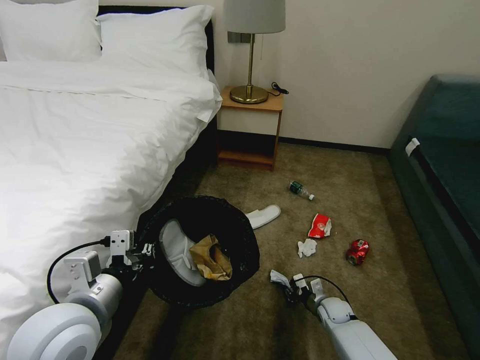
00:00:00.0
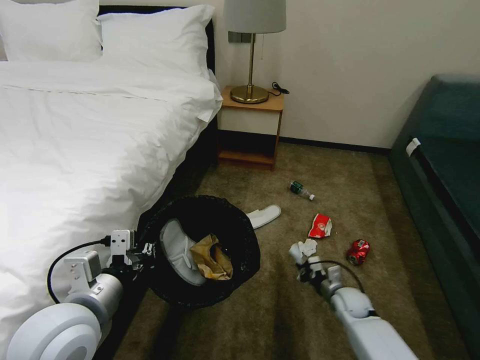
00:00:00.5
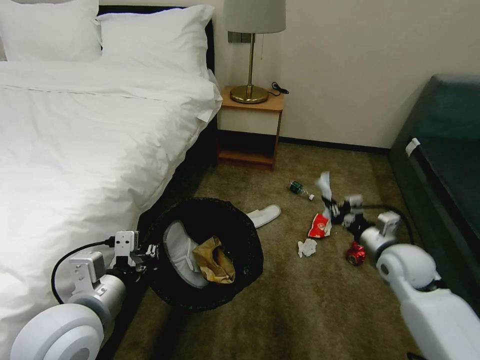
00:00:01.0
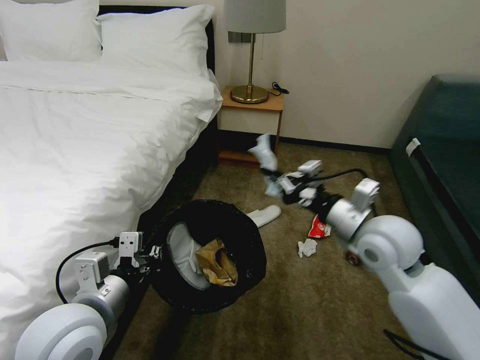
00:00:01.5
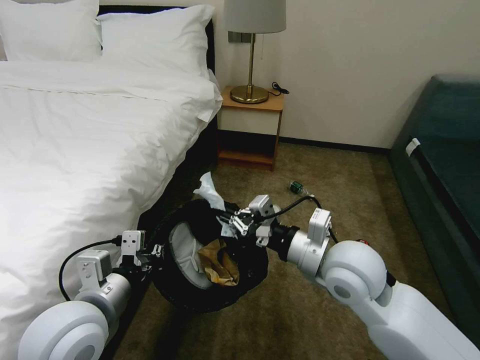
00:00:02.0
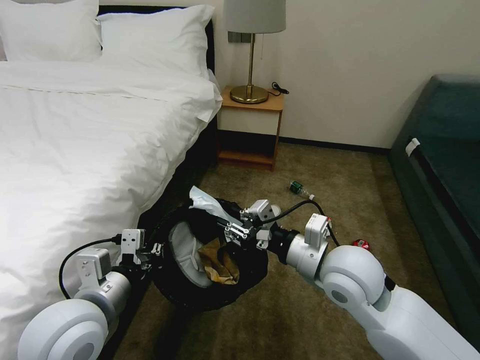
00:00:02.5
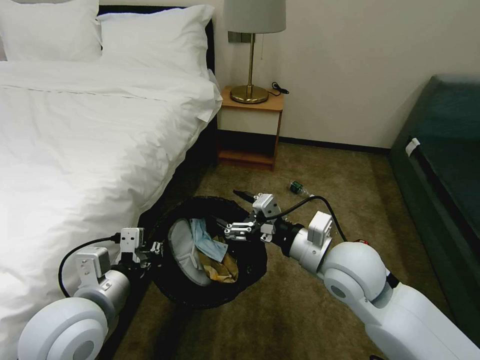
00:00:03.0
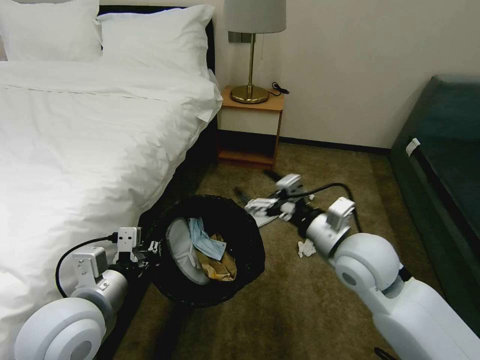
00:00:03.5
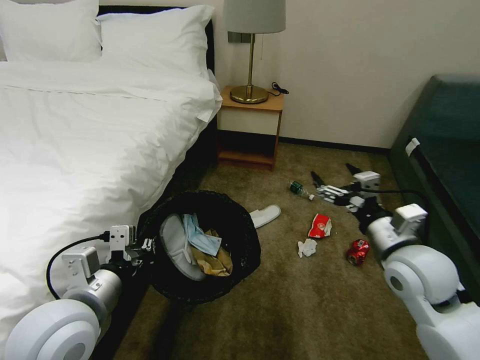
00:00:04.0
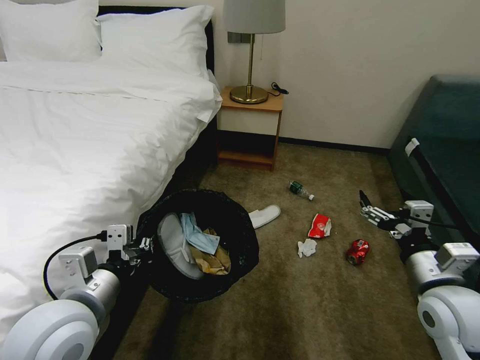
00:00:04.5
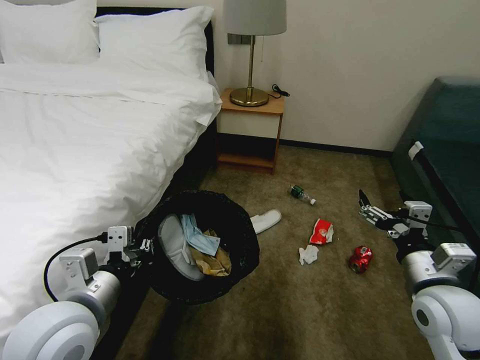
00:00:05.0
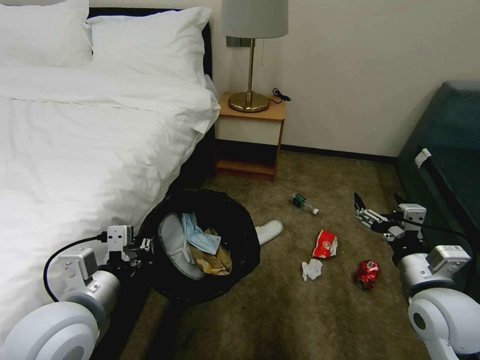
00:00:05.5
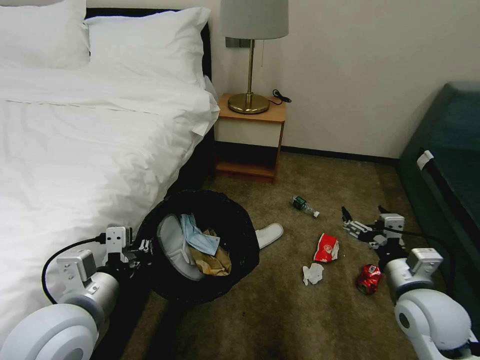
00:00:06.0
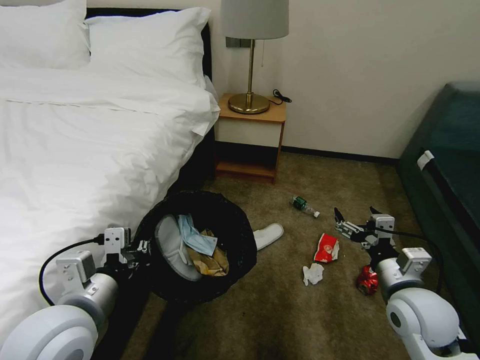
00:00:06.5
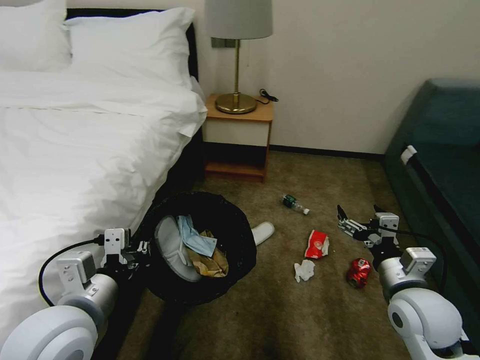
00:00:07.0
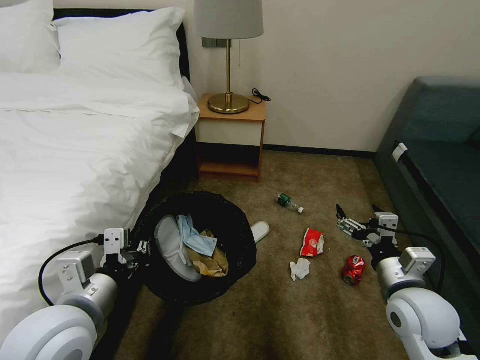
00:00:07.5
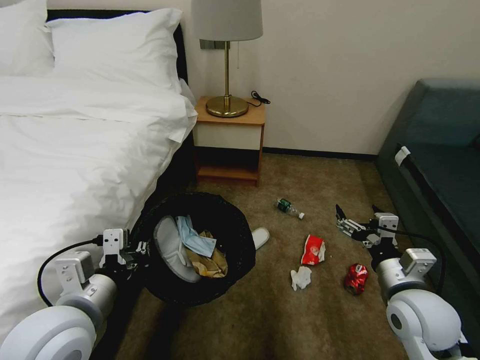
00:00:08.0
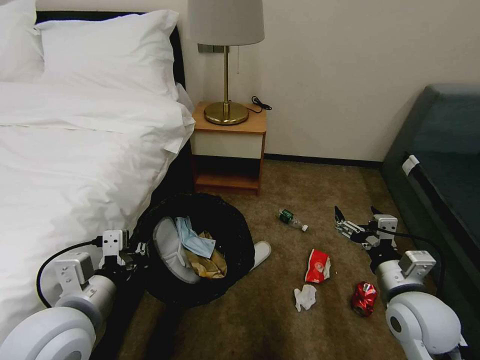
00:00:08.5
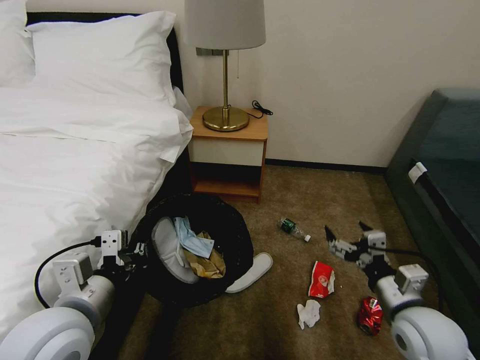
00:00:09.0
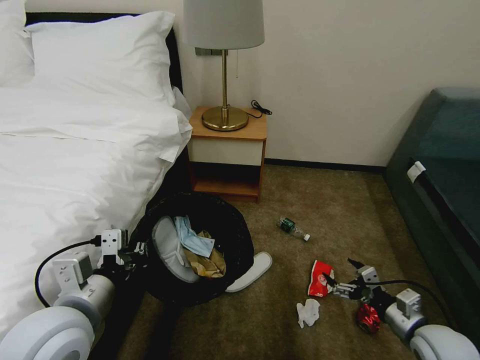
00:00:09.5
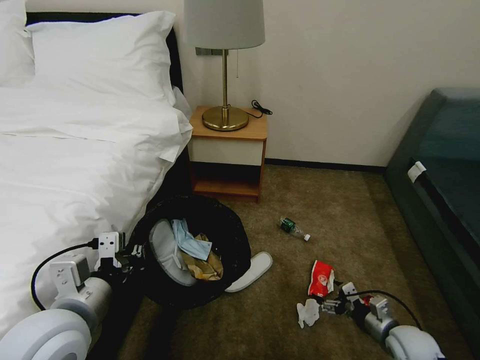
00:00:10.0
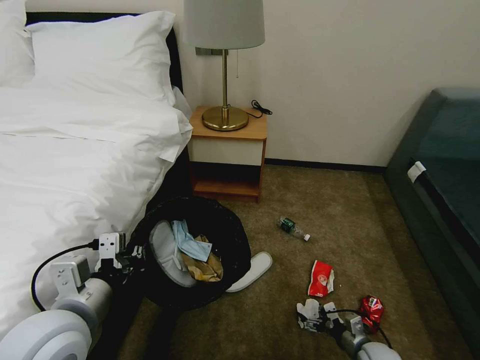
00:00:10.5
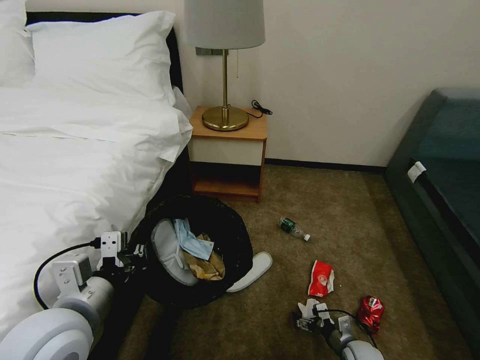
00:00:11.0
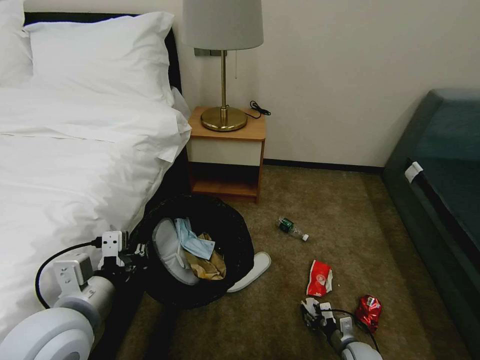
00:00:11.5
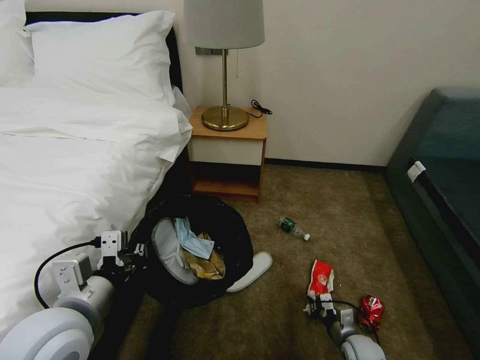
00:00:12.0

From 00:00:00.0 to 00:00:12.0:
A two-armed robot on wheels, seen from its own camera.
Task of the whole recording: Pick up the trash bin, then pick up the garbage on the floor and place it into the trash bin.
From 00:00:00.0 to 00:00:02.0: The right gripper moves upward, approximately 40 cm.
From 00:00:02.0 to 00:00:04.0: The right gripper heads to the right, covering some 10 cm, and opens its fingers.
From 00:00:04.0 to 00:00:06.0: The right gripper goes some 10 cm downward and backward.
From 00:00:08.0 to 00:00:10.0: The right gripper heads downward and to the right, covering about 20 cm.
From 00:00:10.0 to 00:00:12.0: The right gripper goes about 15 cm downward and to the left, and closes.

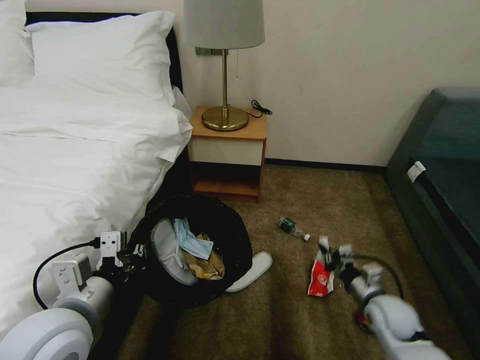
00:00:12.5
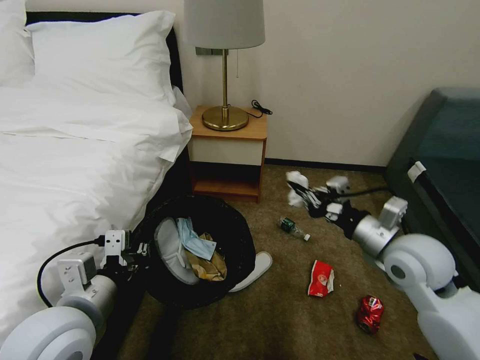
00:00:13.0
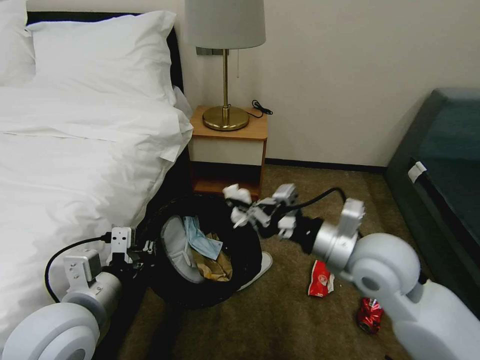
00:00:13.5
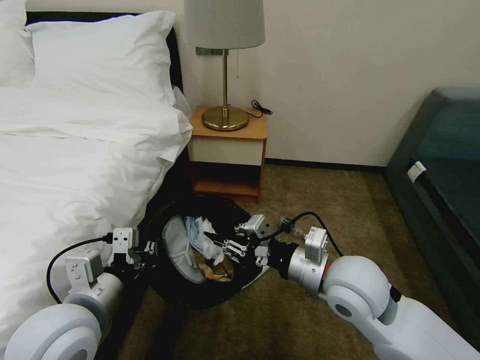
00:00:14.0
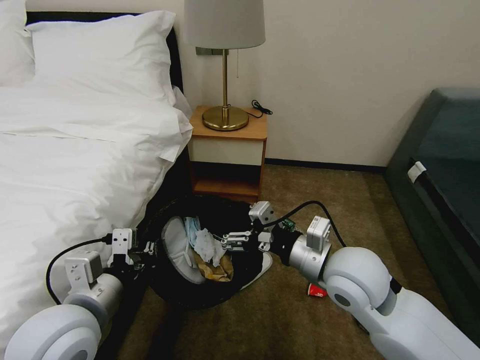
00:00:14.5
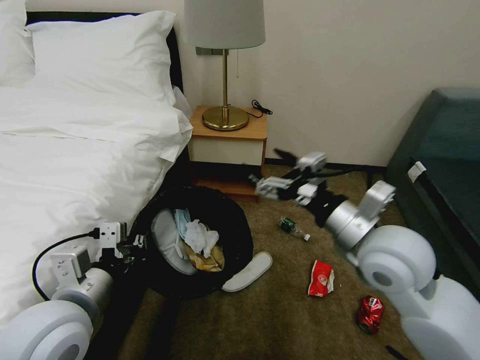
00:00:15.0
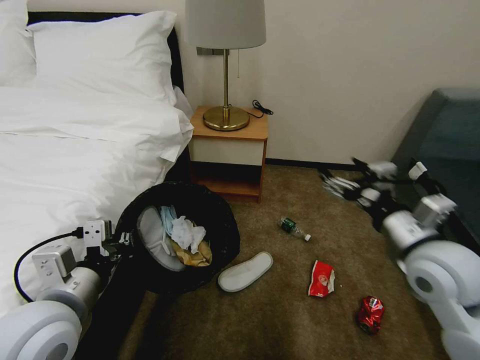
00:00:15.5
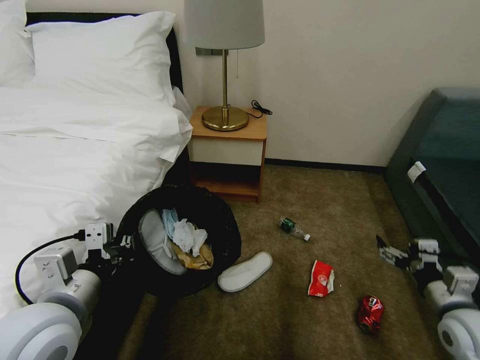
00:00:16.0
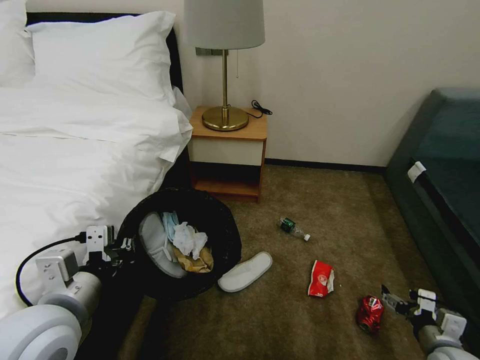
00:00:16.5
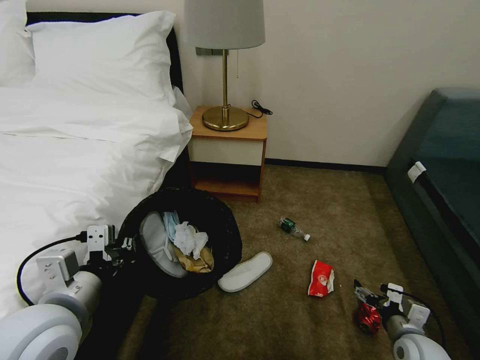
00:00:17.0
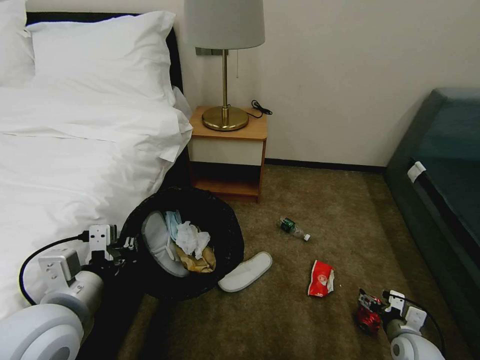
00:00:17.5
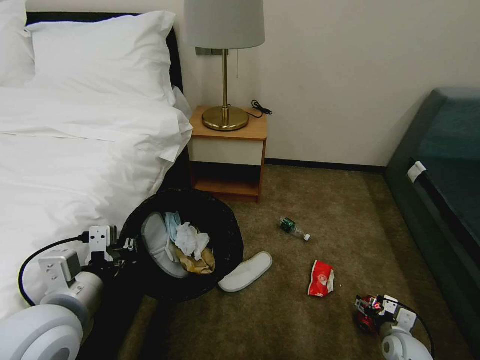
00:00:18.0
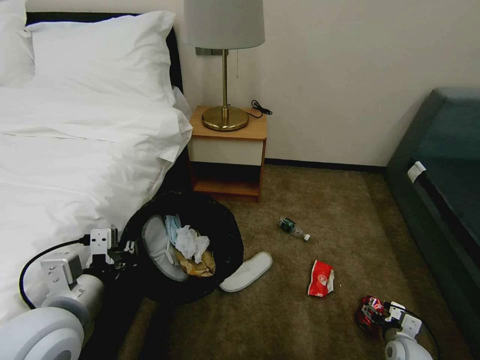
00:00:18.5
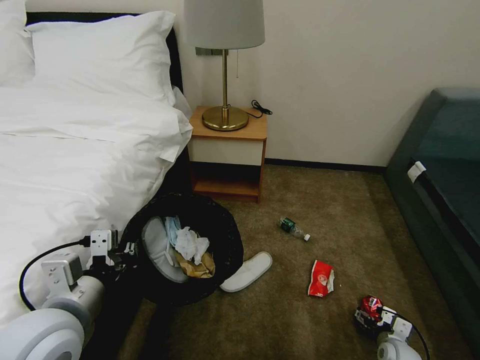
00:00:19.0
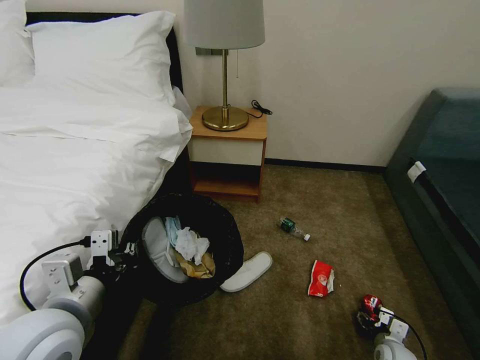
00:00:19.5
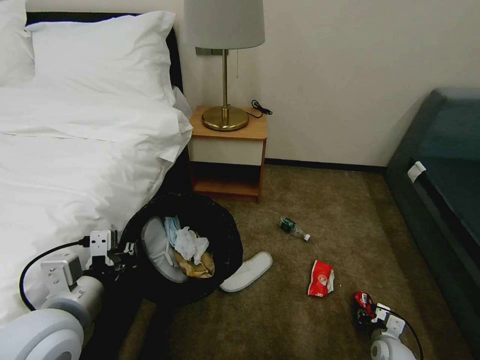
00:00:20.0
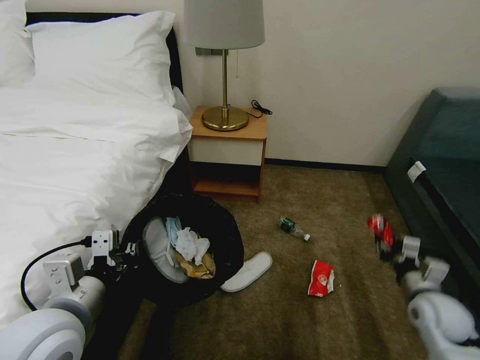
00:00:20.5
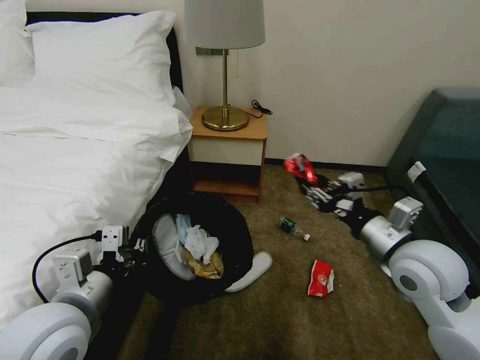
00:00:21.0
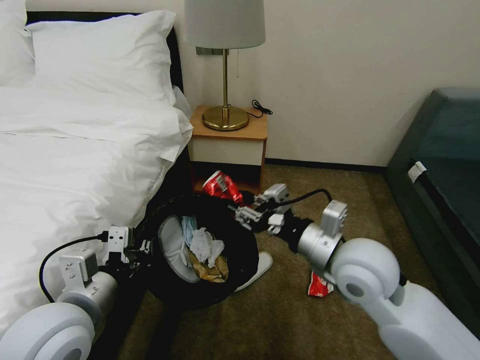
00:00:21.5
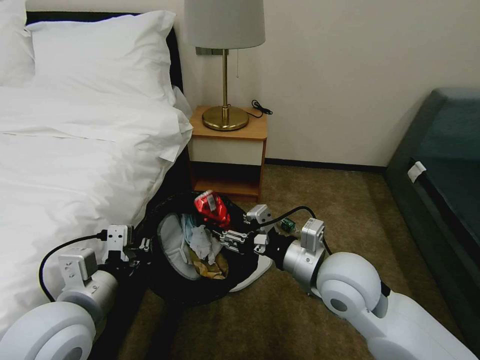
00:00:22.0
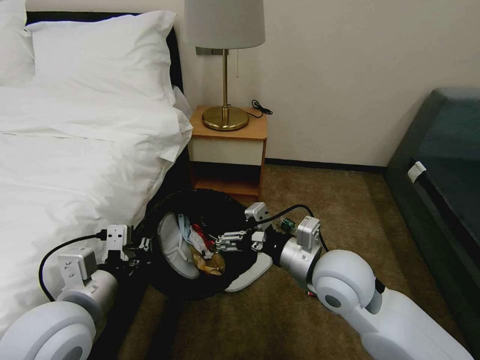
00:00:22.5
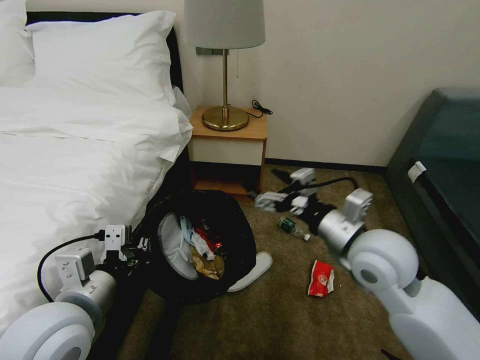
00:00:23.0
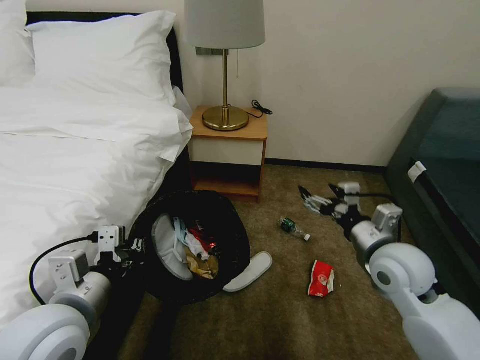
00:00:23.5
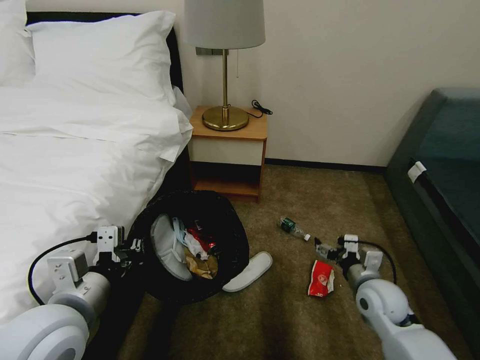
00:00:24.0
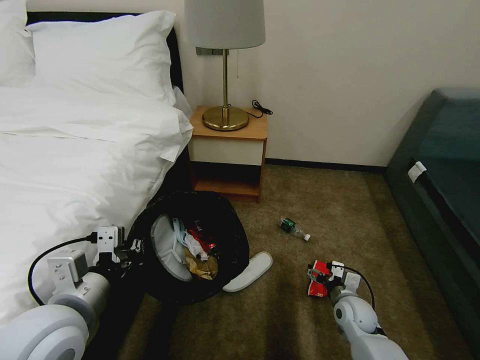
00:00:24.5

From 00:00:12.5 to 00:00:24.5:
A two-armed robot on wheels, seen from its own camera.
Task of the whole recording: Pick up the trash bin, then pick up the garbage on the floor and place it into the trash bin.
From 00:00:12.5 to 00:00:14.5: The right gripper goes some 30 cm upward and to the left, and opens.
From 00:00:14.5 to 00:00:16.5: The right gripper goes approximately 35 cm to the right and downward.
From 00:00:16.5 to 00:00:18.5: The right gripper shifts some 10 cm downward.
From 00:00:18.5 to 00:00:20.5: The right gripper is displaced upward by about 15 cm, and closes its fingers.
From 00:00:20.5 to 00:00:22.5: The right gripper moves to the left and upward, approximately 30 cm, and opens.
From 00:00:22.5 to 00:00:24.5: The right gripper is displaced downward and to the right by some 30 cm.

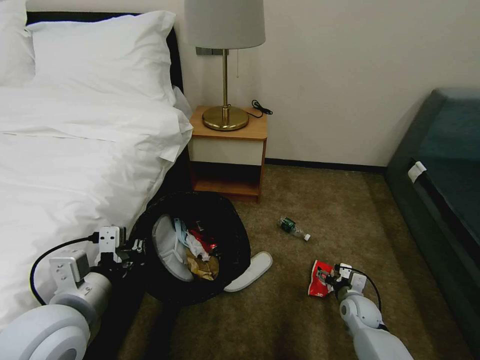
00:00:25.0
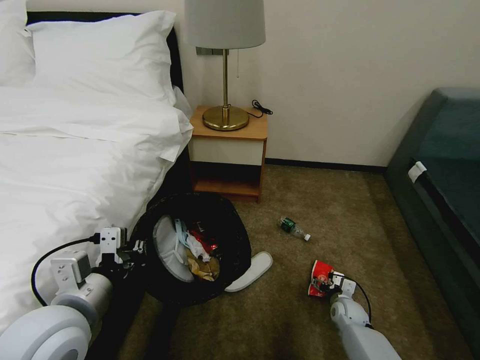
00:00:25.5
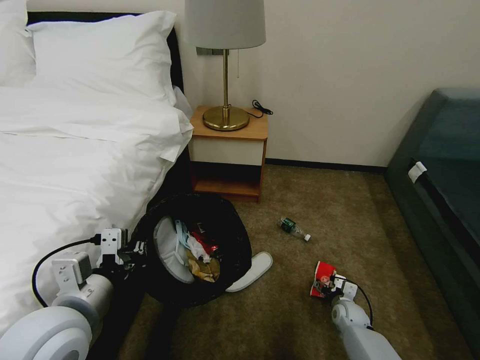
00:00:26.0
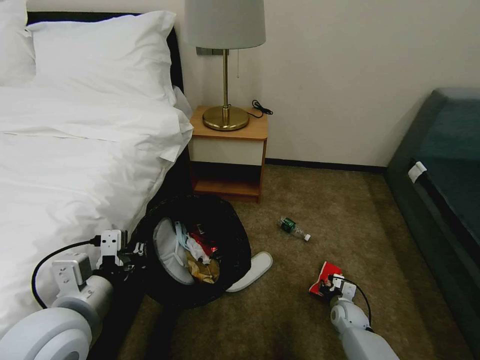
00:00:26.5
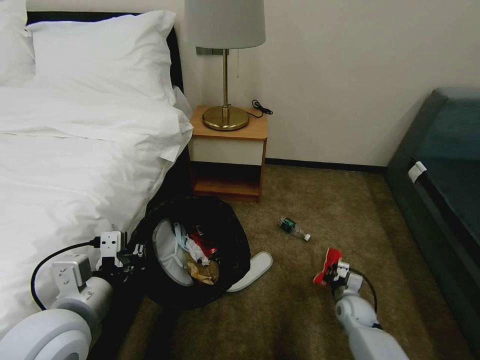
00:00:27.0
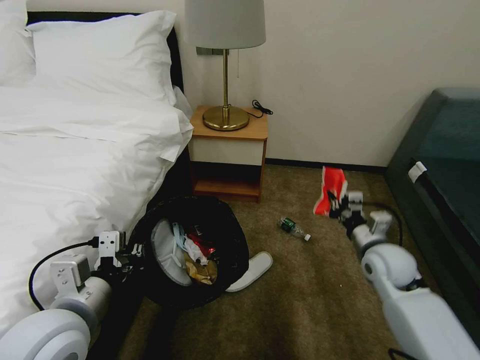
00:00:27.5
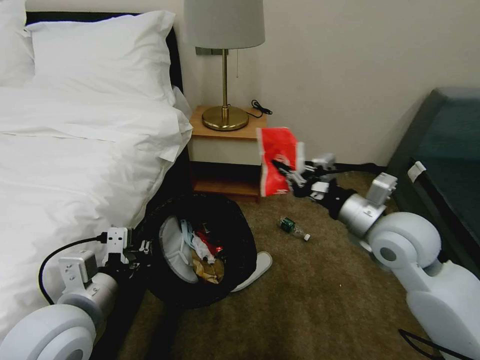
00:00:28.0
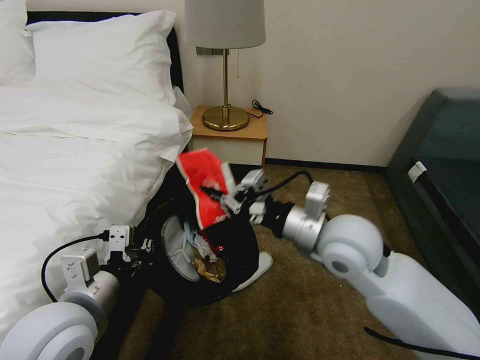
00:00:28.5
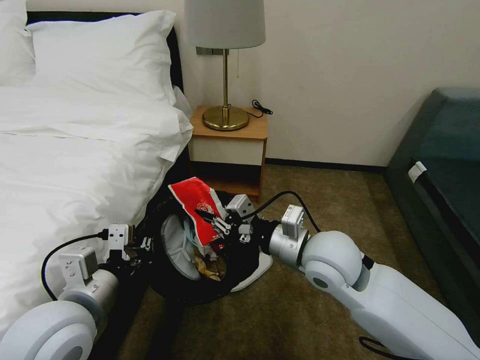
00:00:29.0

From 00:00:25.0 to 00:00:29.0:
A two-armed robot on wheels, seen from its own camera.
Task of the whole recording: Pick up the trash bin, then pick up the garbage on the floor and place it into the trash bin.
From 00:00:25.0 to 00:00:27.0: The right gripper closes.
From 00:00:27.0 to 00:00:29.0: The right gripper heads upward and to the left, covering roughly 40 cm.
